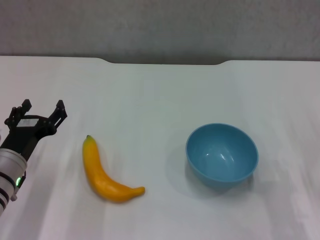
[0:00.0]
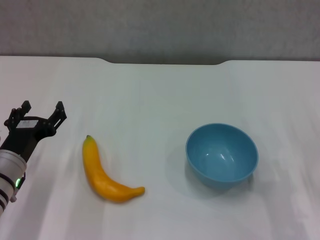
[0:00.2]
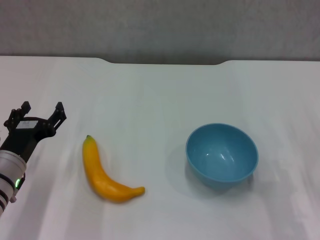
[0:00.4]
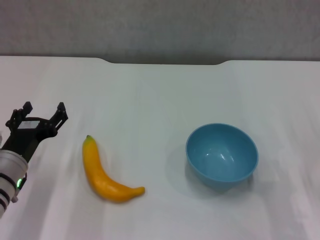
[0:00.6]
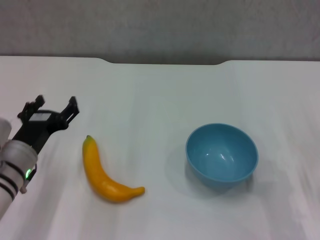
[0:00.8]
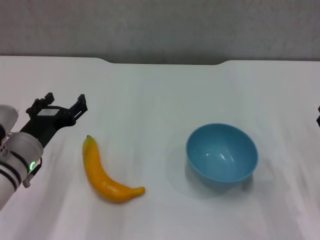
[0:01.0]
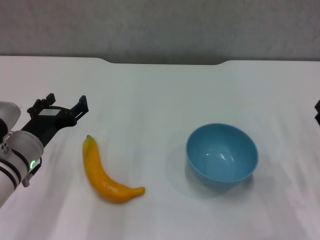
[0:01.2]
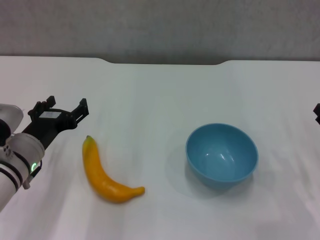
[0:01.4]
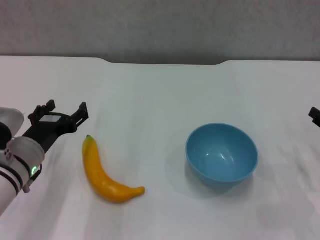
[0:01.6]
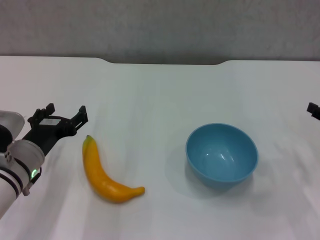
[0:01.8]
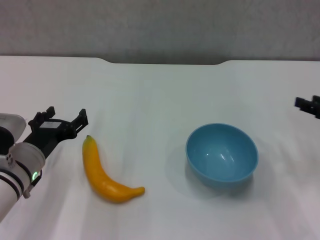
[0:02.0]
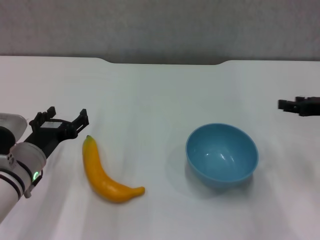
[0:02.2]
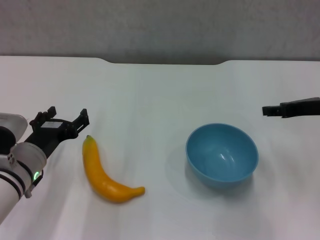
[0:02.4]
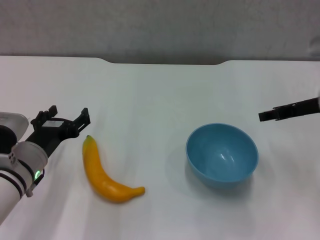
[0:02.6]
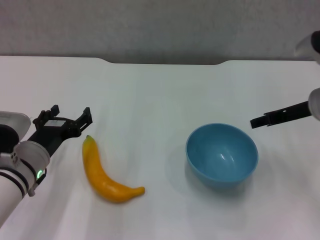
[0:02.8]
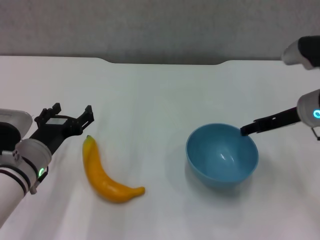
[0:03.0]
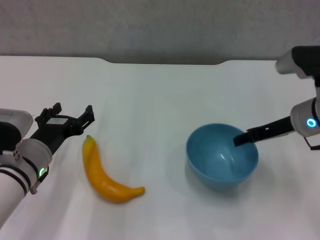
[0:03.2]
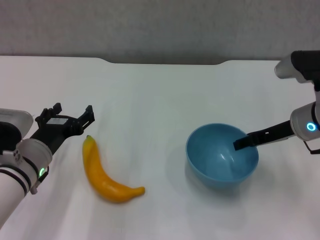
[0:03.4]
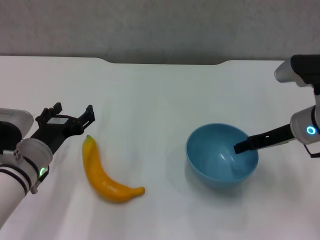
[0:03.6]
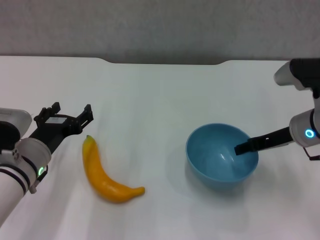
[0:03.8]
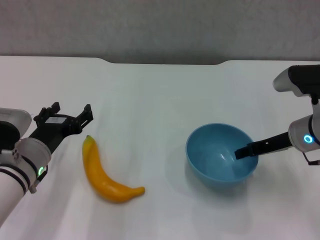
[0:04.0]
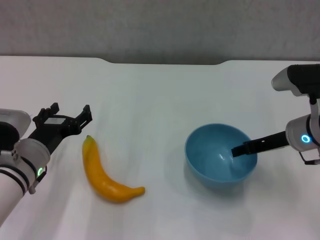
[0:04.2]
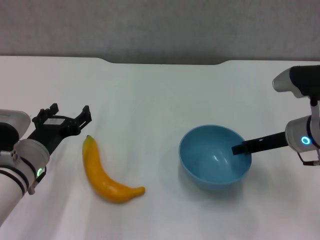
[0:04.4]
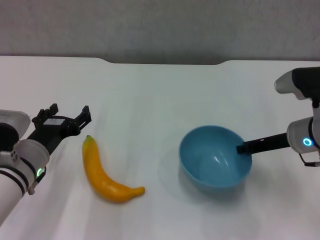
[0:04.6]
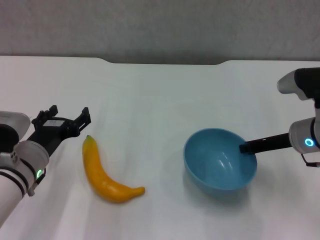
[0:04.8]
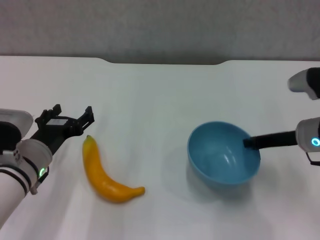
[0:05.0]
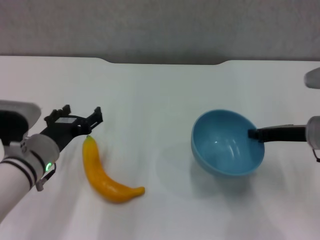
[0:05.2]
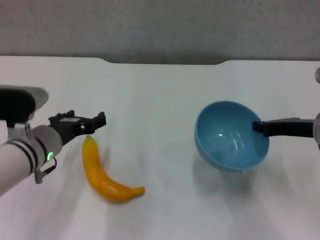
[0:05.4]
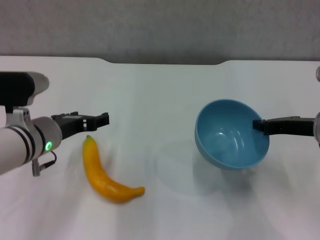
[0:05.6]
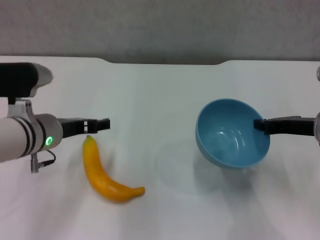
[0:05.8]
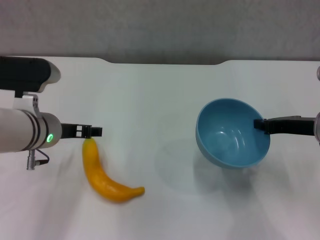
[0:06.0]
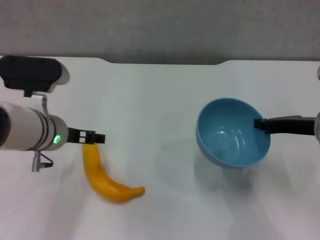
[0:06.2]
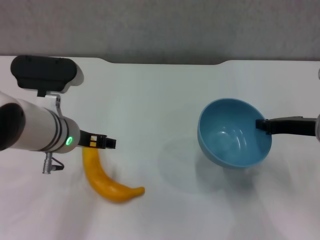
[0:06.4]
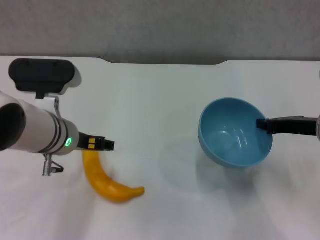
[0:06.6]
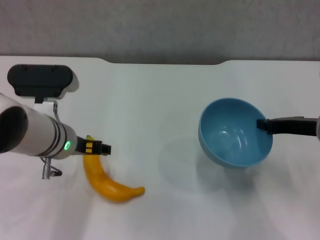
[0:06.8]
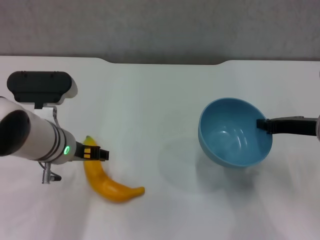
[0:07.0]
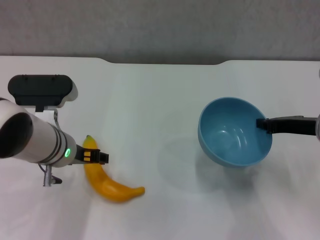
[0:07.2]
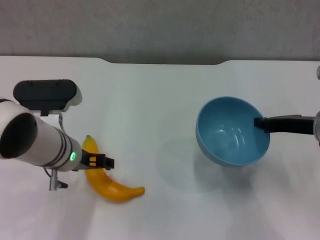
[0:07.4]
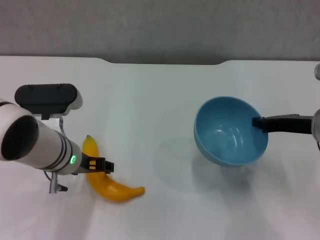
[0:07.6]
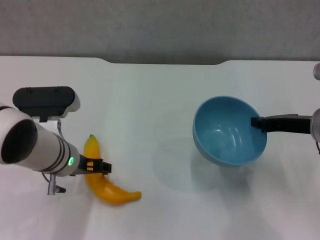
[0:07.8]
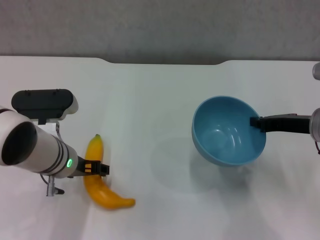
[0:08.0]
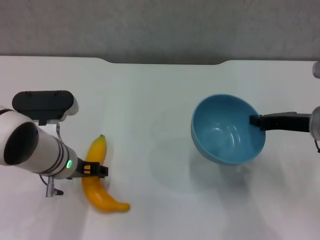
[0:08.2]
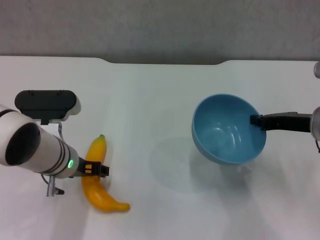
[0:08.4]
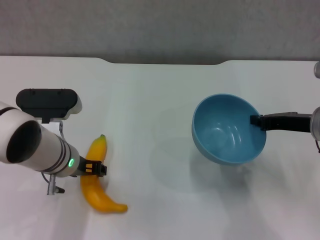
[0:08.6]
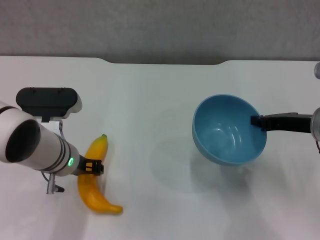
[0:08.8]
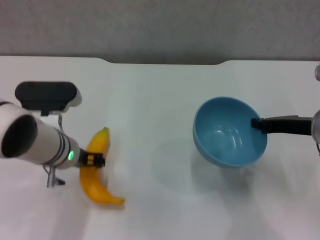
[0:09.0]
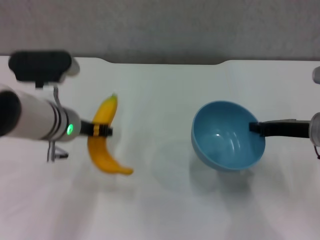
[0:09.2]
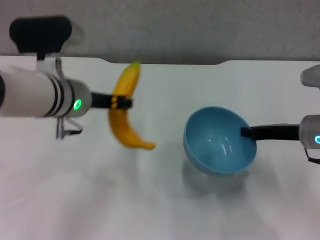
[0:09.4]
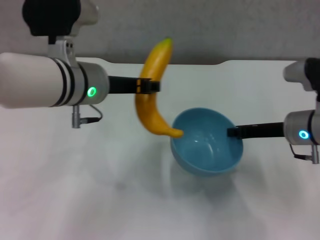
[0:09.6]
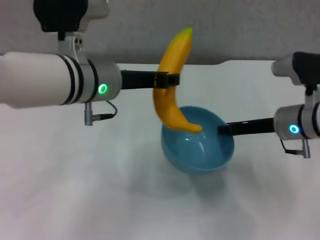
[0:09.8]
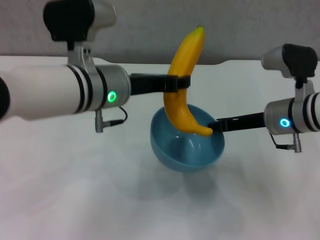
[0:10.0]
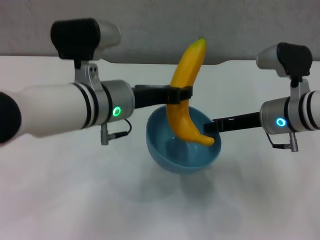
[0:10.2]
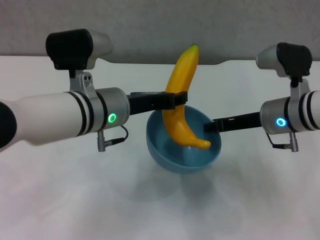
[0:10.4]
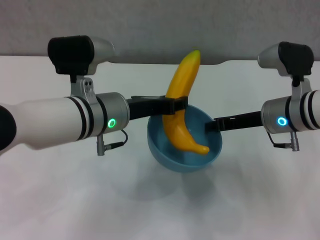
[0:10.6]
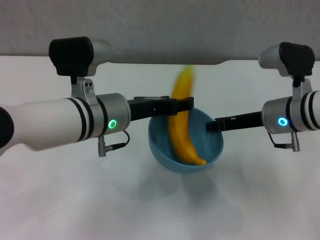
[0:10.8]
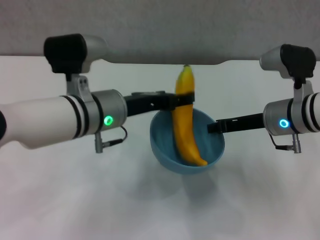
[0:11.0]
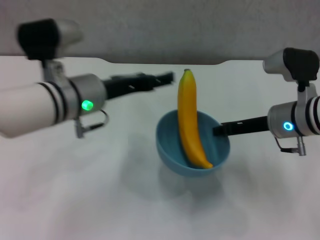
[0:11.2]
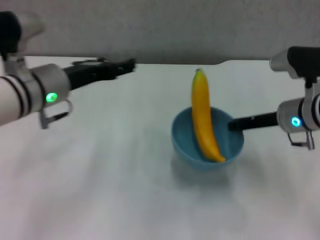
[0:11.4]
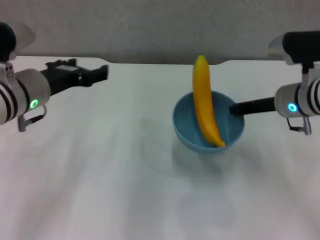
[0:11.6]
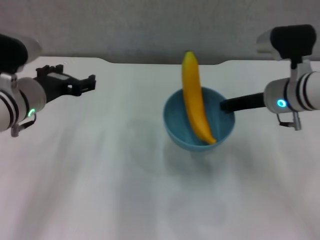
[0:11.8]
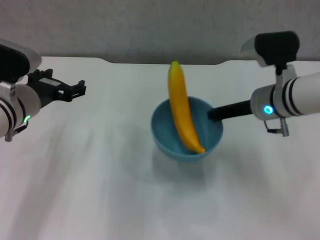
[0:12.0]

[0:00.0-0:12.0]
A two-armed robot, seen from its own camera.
Step, 0:00.0 to 0:04.6: Grasp the blue bowl with right gripper.
Step, 0:05.0 to 0:05.4: Lift the blue bowl with right gripper.
Step, 0:05.6 to 0:08.8: Grasp the banana with left gripper.
Step, 0:09.0 to 0:11.0: Place the banana in the blue bowl with left gripper.
0:01.6 to 0:03.0: The right gripper shifts roughly 15 cm to the left, forward and upward.
0:03.0 to 0:04.4: There are only small adjustments of the grippers.
0:04.4 to 0:06.0: The left gripper shifts roughly 5 cm upward, while the right gripper closes its fingers.
0:06.0 to 0:07.6: The grippers move only a little.
0:07.6 to 0:09.0: The left gripper closes up.
0:09.0 to 0:10.4: The right gripper shifts some 5 cm to the left. The left gripper heads upward and to the right, covering some 10 cm.
0:10.4 to 0:12.0: The left gripper moves to the left, about 10 cm, and opens up.

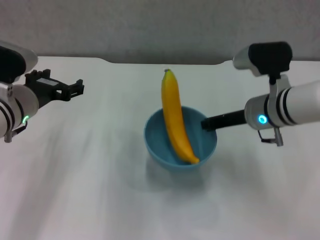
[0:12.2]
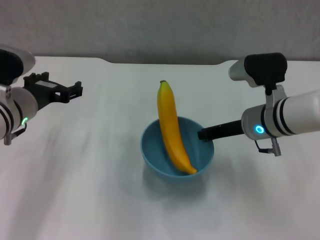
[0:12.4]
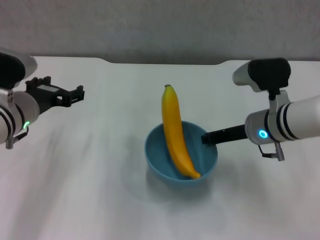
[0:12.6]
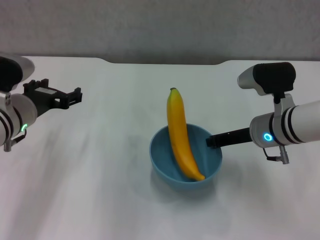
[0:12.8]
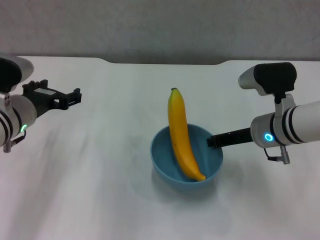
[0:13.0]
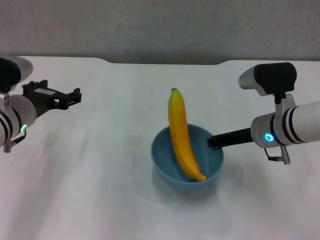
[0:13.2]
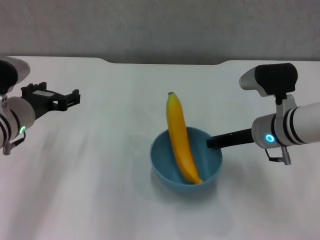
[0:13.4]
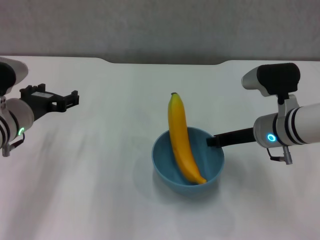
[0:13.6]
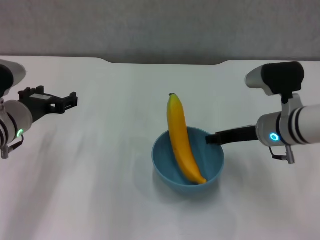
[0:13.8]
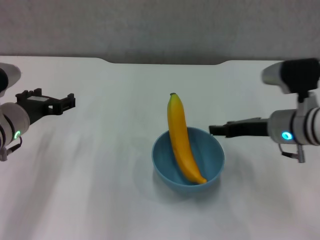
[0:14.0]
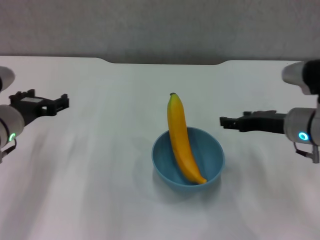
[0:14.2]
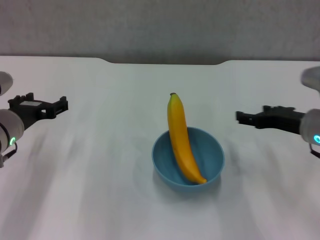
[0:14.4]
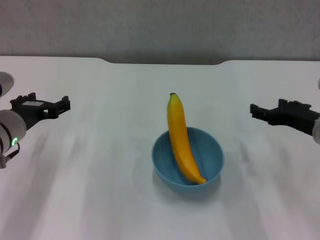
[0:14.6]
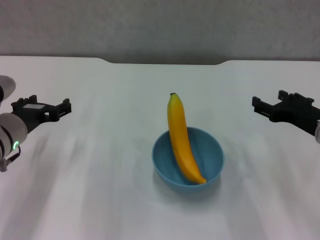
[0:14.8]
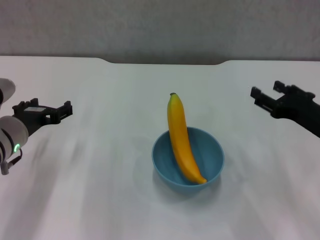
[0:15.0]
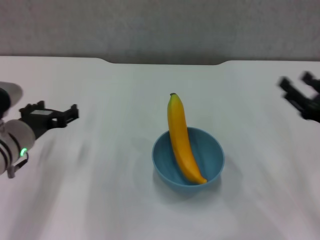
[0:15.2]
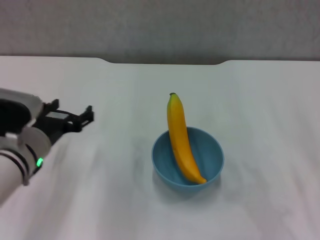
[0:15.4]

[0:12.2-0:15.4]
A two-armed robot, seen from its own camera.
Step, 0:12.2 to 0:13.8: Place the bowl on the table with right gripper.
0:12.2 to 0:13.8: There are only small adjustments of the grippers.
0:13.8 to 0:15.4: The right gripper is displaced backward and to the right by about 20 cm, and opens its fingers; the left gripper changes place by approximately 5 cm.

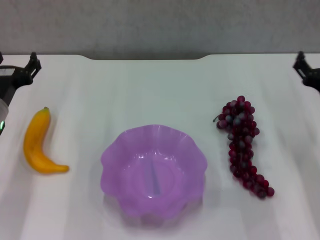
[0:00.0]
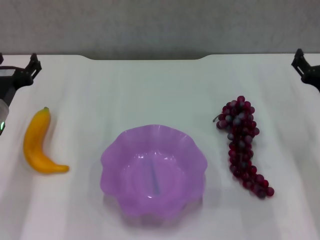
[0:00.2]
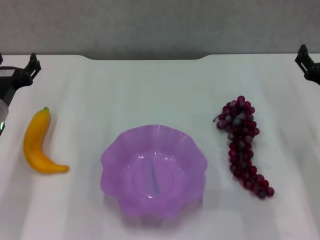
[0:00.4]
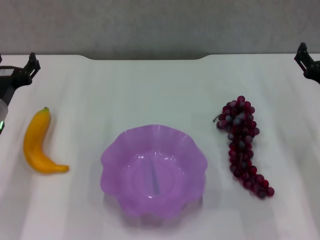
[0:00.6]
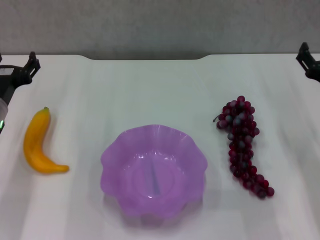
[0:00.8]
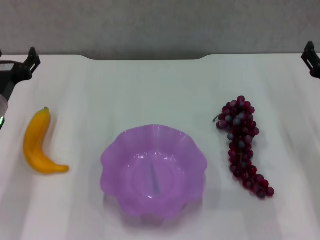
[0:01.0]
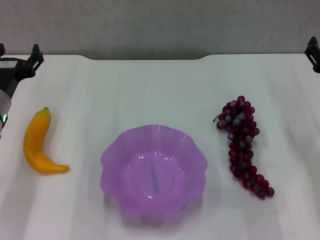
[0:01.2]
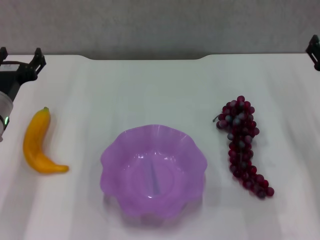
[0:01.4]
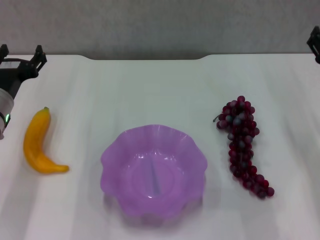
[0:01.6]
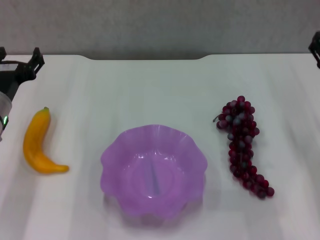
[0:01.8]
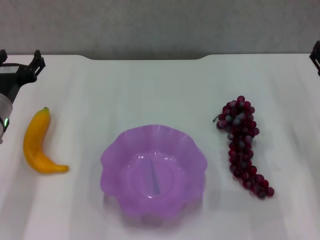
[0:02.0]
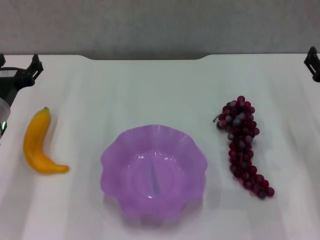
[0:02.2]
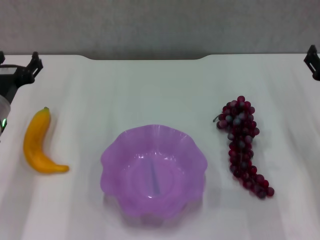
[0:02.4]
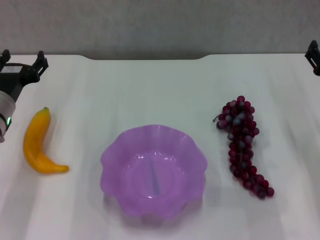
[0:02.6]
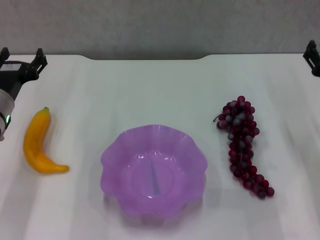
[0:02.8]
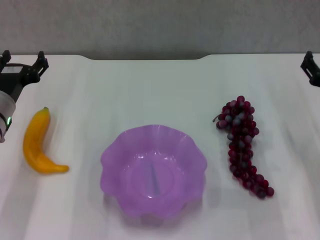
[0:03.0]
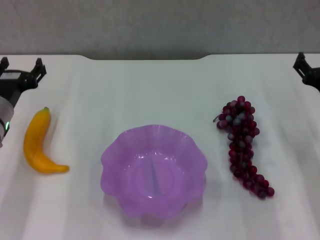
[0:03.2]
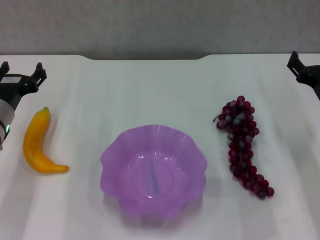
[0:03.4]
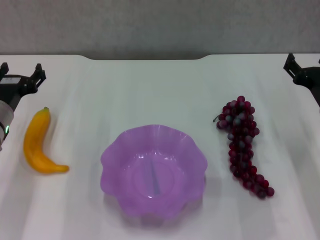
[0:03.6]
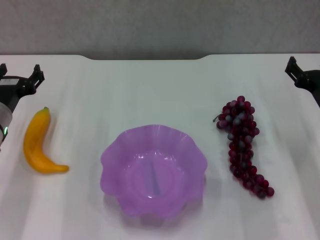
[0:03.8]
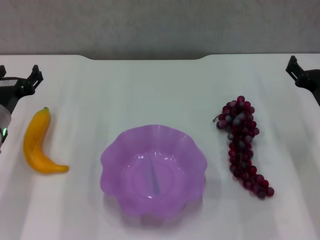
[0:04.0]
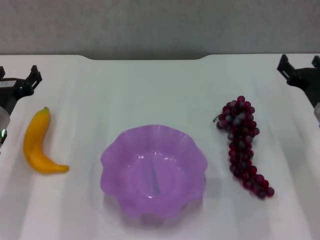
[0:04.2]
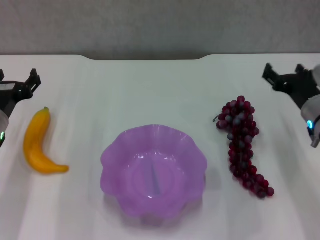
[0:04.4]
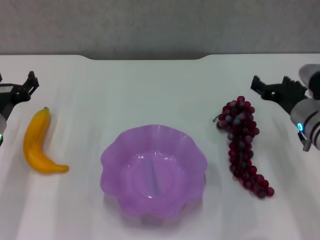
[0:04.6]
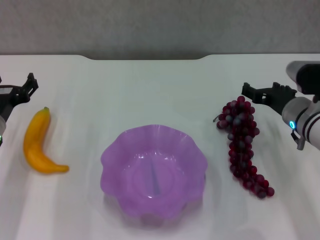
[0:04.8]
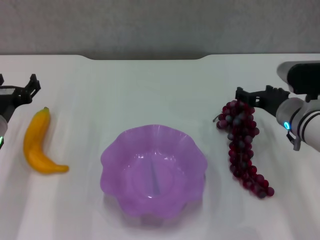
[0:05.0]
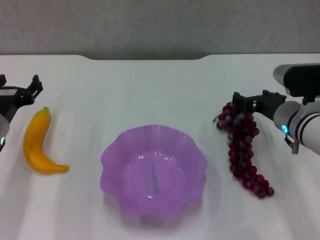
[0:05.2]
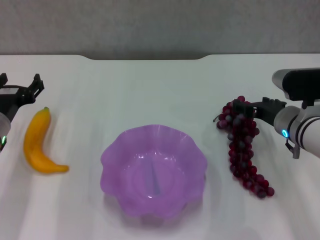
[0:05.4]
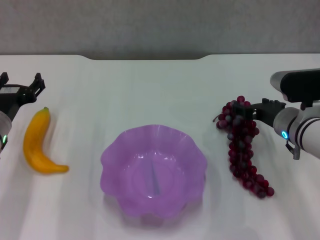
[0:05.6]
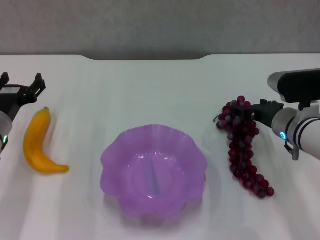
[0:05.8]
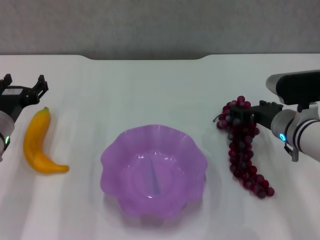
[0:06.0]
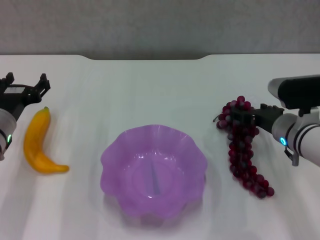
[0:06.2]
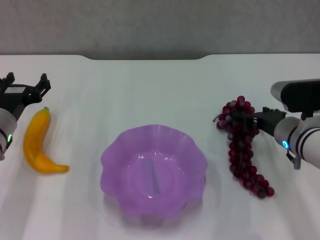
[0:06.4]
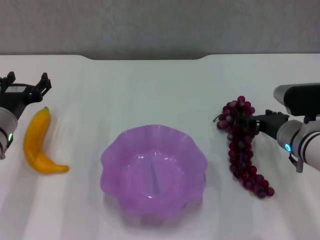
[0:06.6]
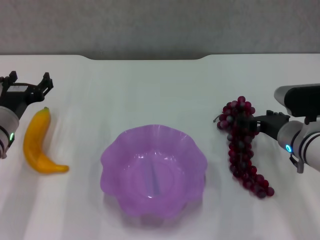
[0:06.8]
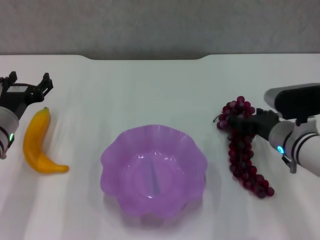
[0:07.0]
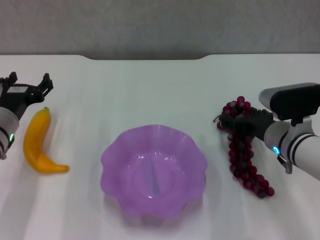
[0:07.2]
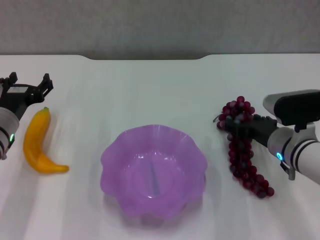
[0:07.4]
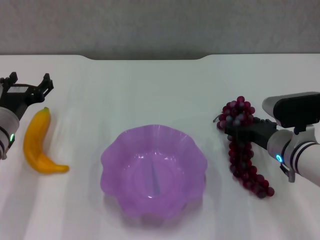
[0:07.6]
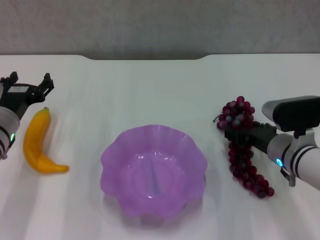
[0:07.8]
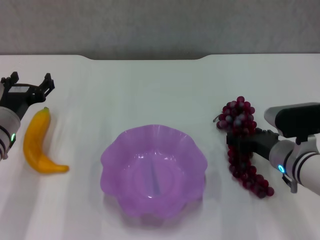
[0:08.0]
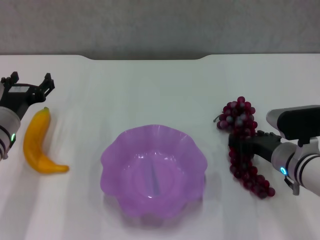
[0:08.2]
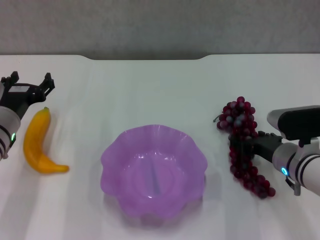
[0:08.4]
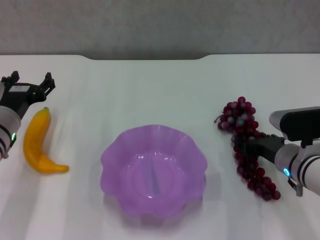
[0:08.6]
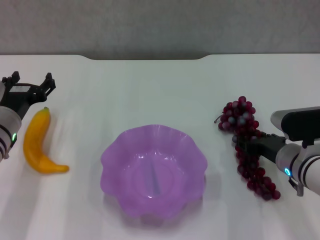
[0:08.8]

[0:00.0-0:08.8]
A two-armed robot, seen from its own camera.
0:00.0 to 0:04.4: The grippers make only small movements.
0:05.8 to 0:08.8: The grippers stay close to where they were, moving slightly.
